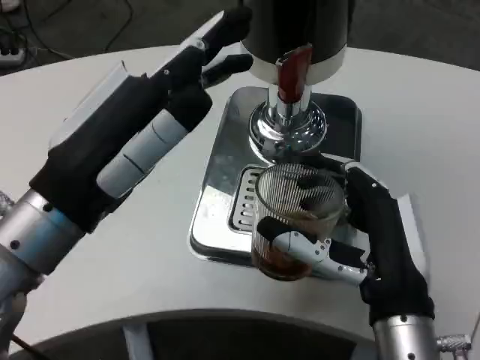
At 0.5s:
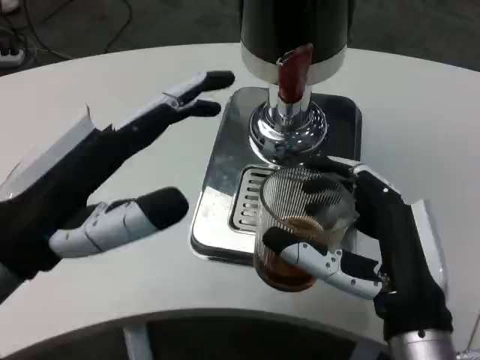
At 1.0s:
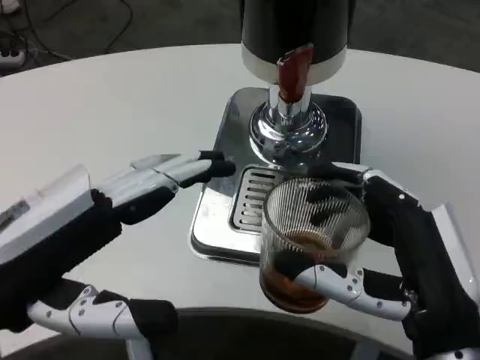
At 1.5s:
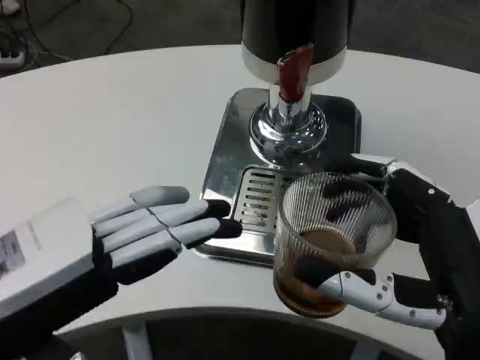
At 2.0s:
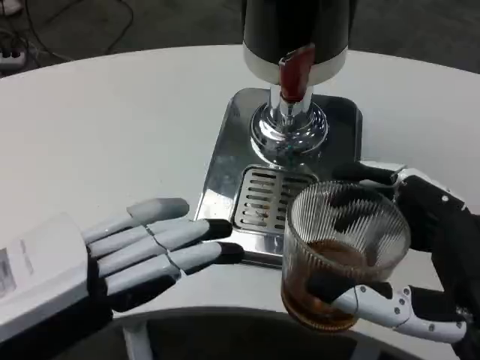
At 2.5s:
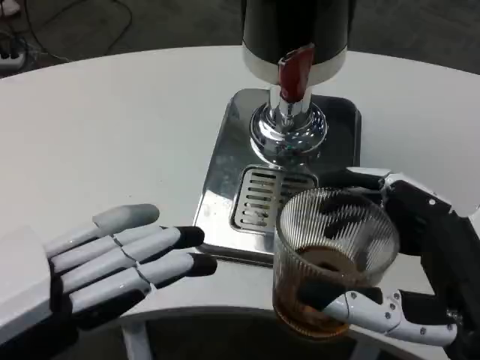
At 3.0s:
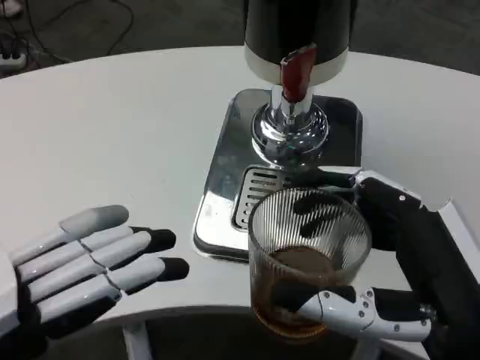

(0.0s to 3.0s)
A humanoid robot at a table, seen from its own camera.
Task of the whole recording: Grasp the cup under the faucet to collect the drink, then remove the cup.
0.0s - 1.5s: The left hand moves to the left and backward, about 10 cm. The right hand travels backward by about 5 cm.
1.5s - 3.0s: The left hand travels backward by roughly 5 cm.

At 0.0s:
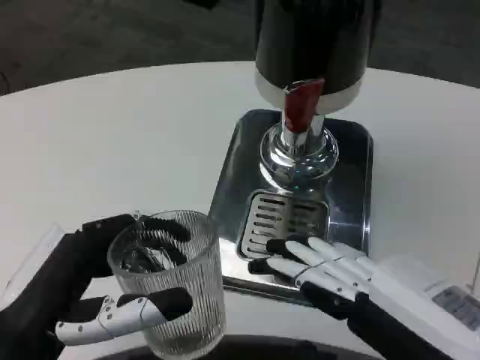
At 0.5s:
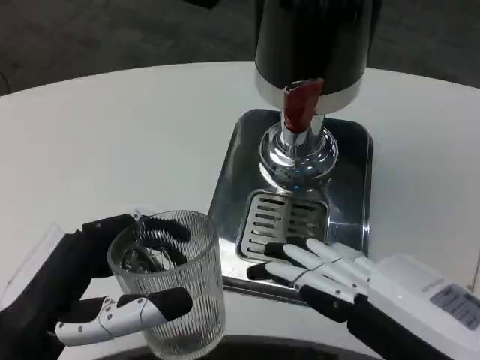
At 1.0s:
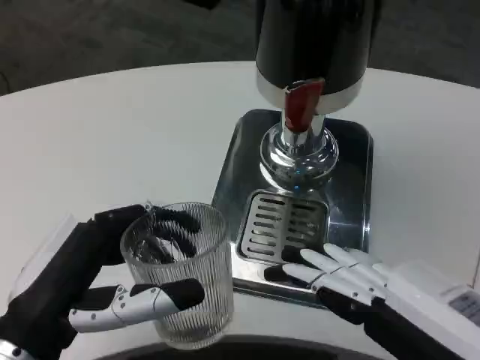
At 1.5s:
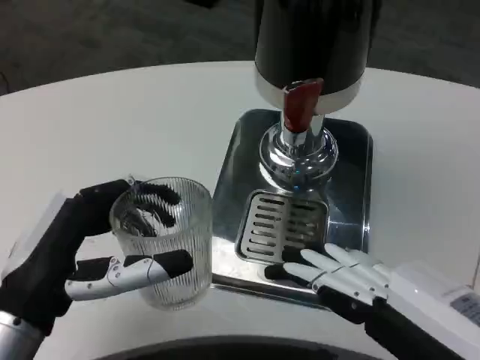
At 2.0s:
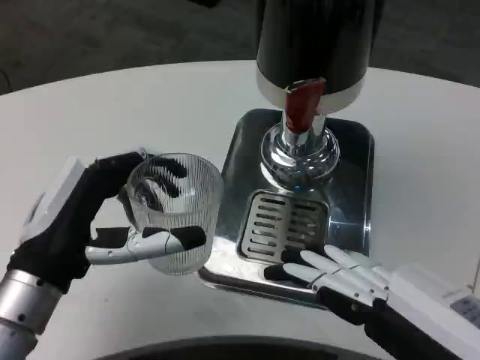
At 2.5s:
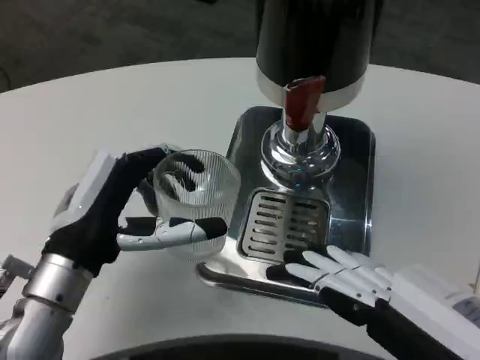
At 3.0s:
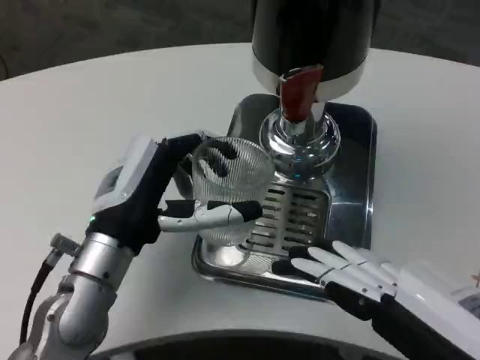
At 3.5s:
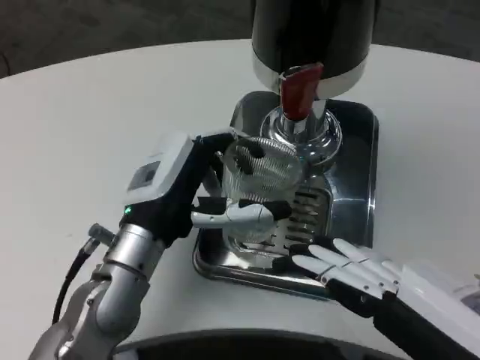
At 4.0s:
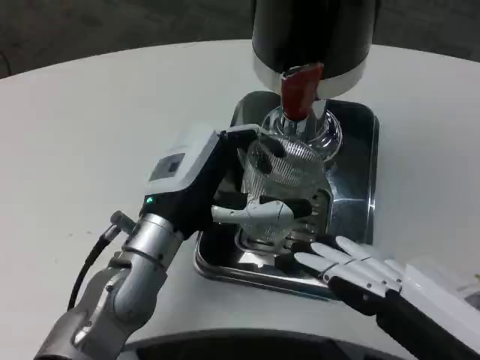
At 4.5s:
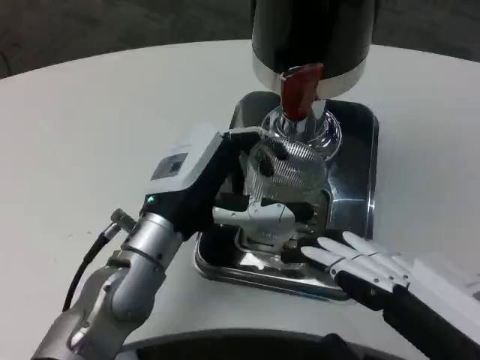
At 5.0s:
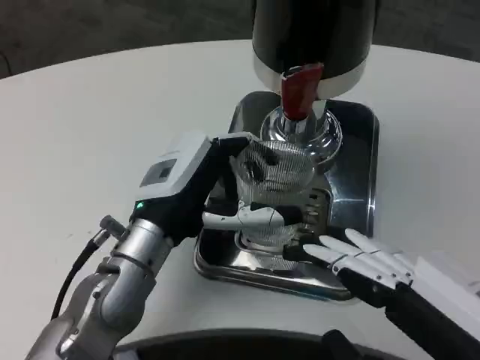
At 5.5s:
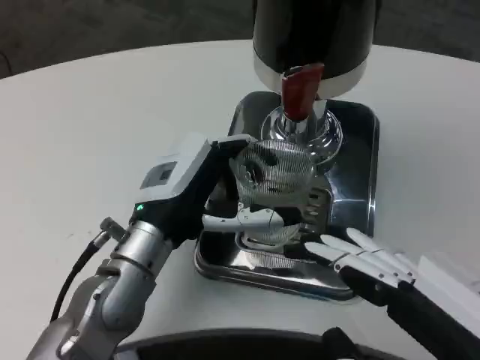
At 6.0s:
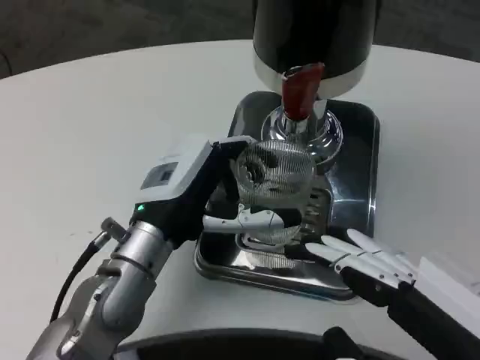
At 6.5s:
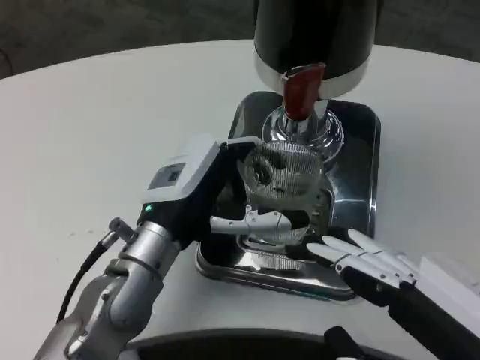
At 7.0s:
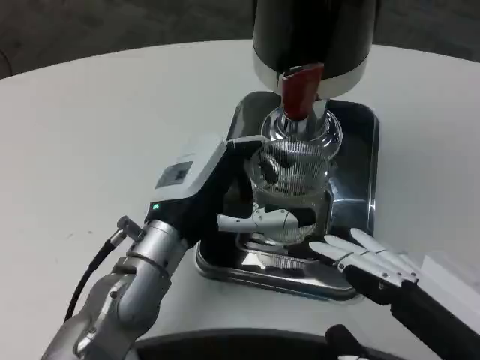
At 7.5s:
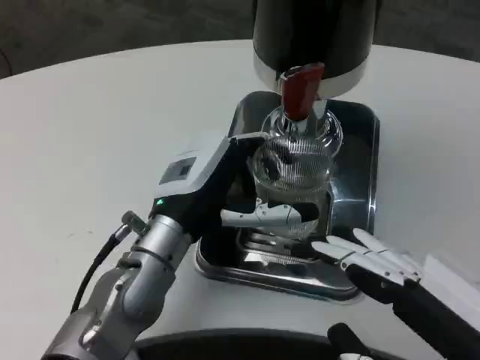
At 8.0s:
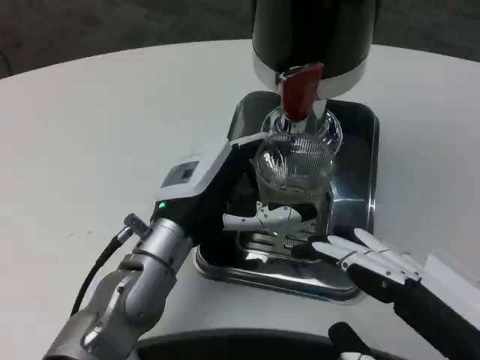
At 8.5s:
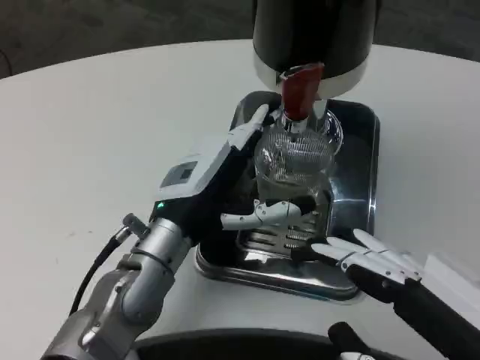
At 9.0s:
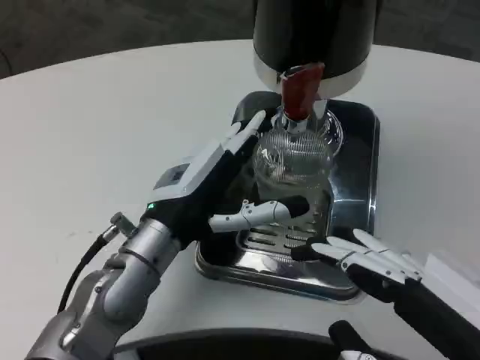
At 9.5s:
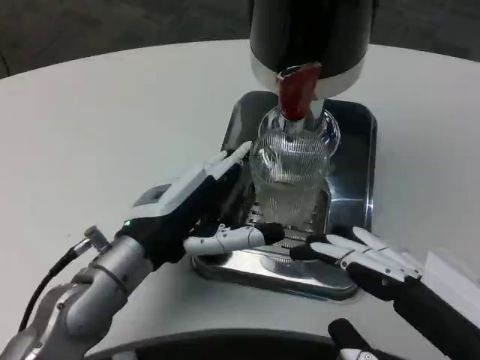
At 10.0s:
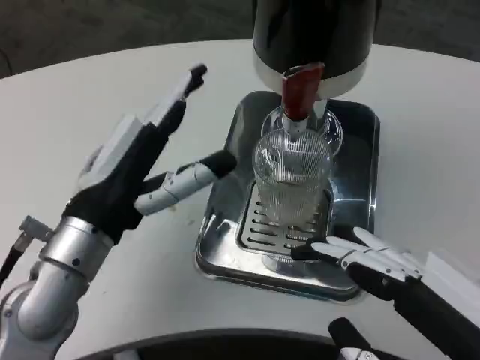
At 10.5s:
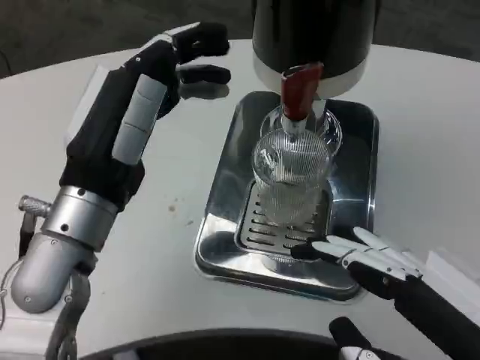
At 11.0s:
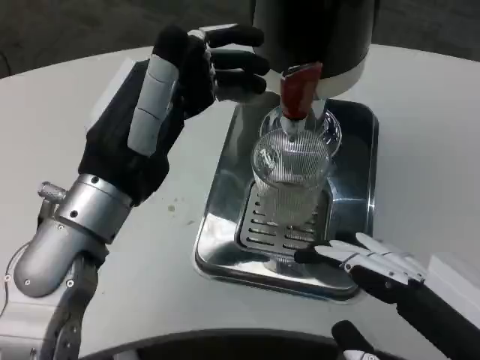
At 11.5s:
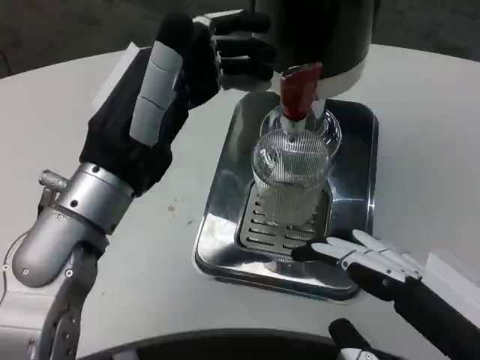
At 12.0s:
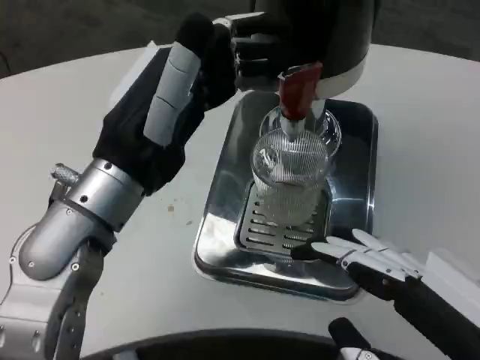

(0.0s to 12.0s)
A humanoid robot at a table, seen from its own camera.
Task of the whole recording: Grasp the cup under the faucet to collect the drink, then remove the cup.
0.0s - 2.0s: The left hand moves forward, approximately 10 cm.
2.0s - 4.0s: The left hand is displaced to the right and forward by some 10 cm.
4.0s - 6.0s: The two hands keep their place.
6.0s - 8.0s: The hands make only small movements.
8.0s - 10.0s: The left hand goes roughly 5 cm to the left.
10.0s - 12.0s: The left hand heads upward, covering roughly 5 cm.

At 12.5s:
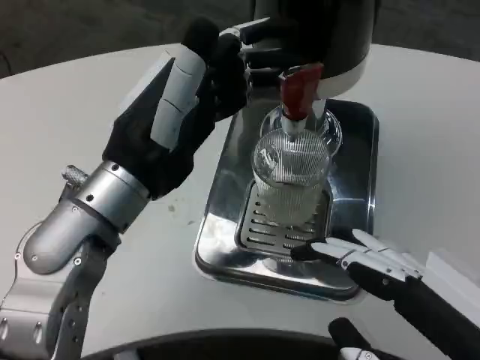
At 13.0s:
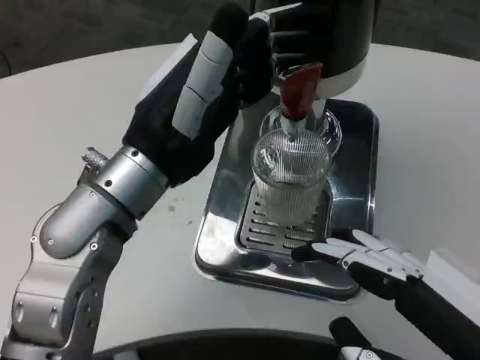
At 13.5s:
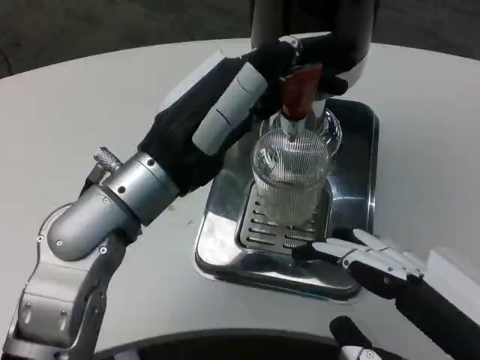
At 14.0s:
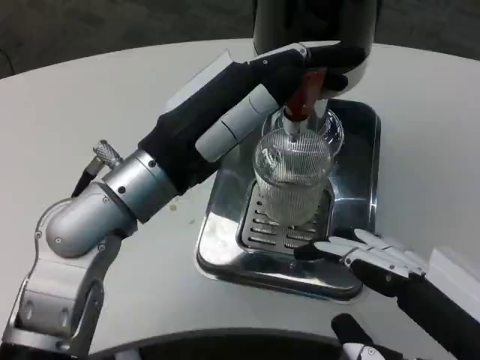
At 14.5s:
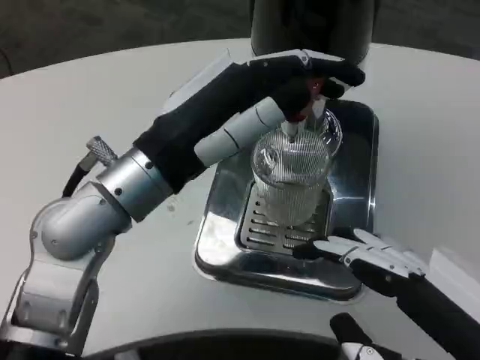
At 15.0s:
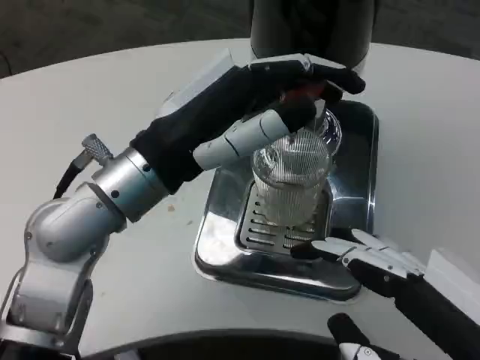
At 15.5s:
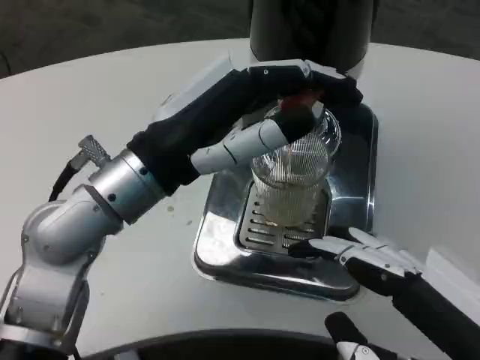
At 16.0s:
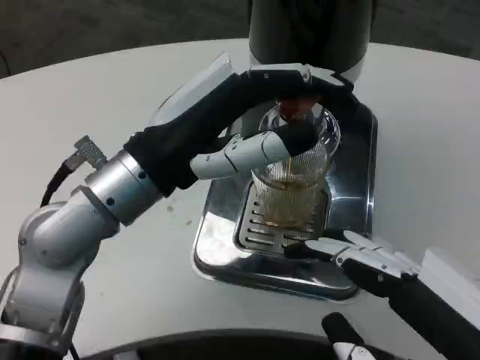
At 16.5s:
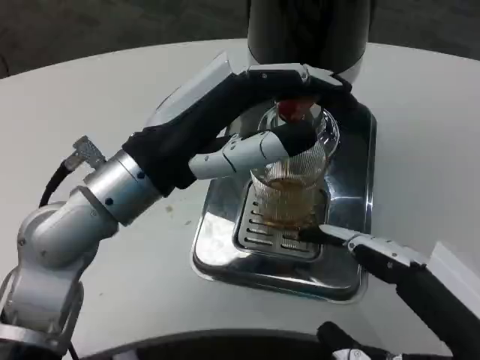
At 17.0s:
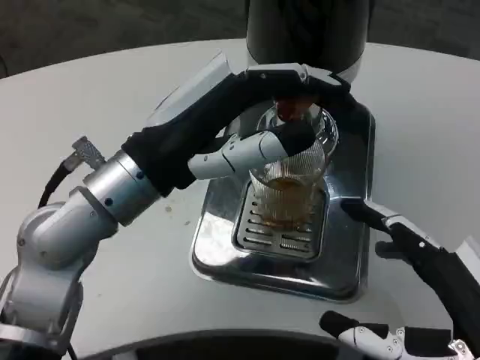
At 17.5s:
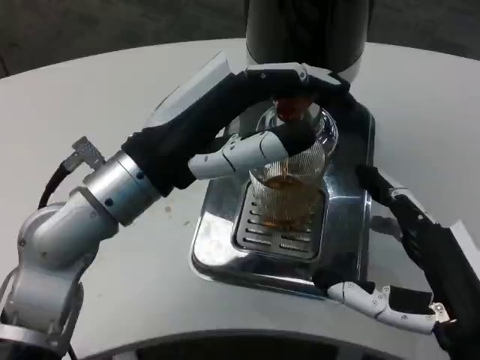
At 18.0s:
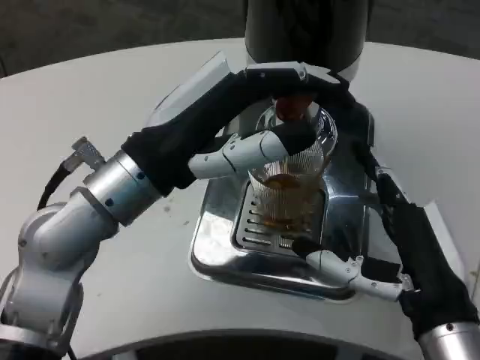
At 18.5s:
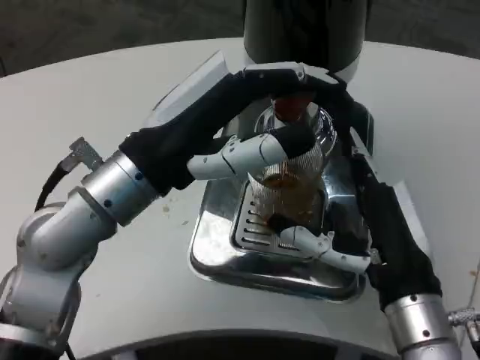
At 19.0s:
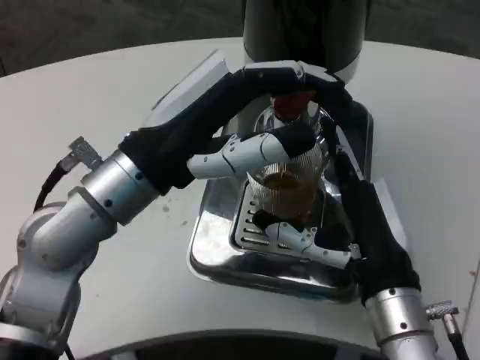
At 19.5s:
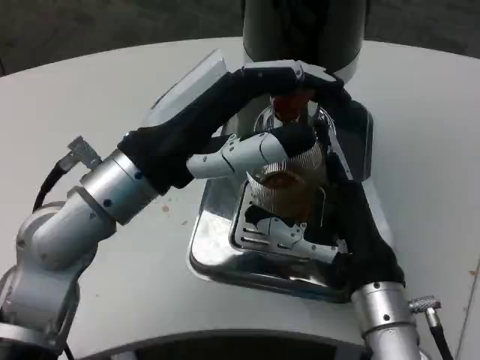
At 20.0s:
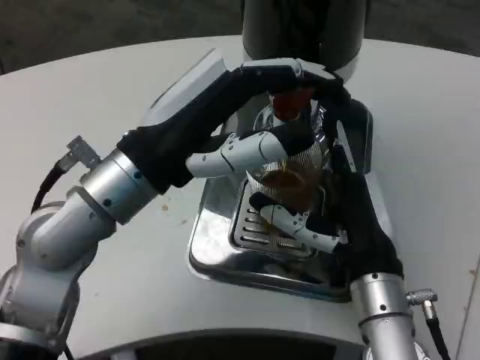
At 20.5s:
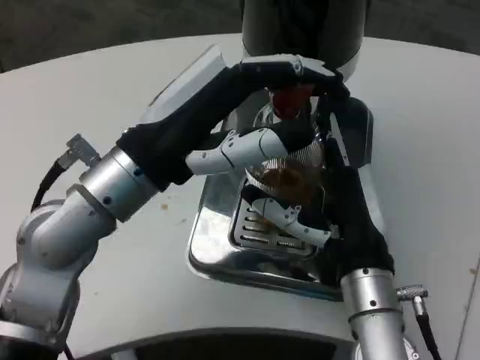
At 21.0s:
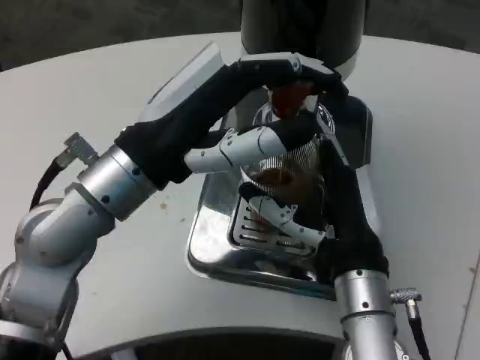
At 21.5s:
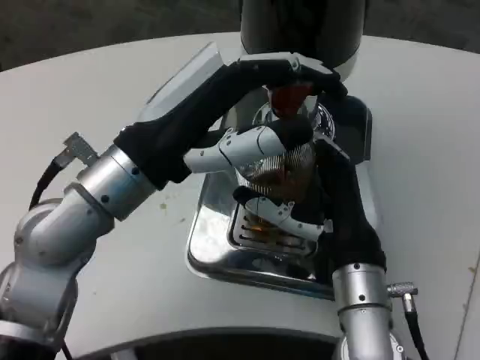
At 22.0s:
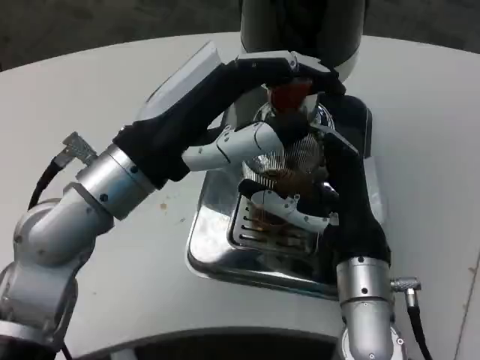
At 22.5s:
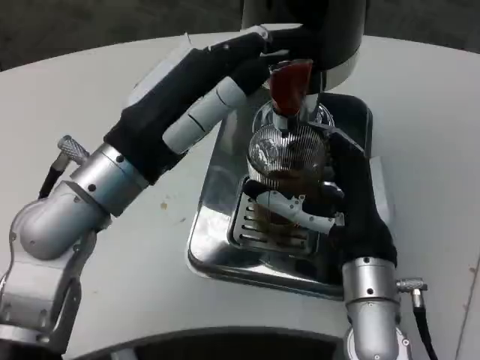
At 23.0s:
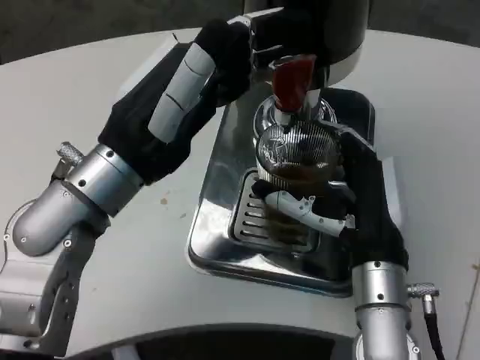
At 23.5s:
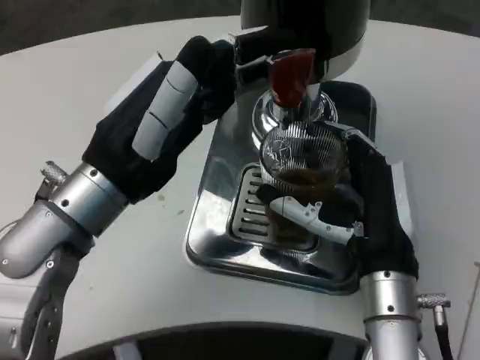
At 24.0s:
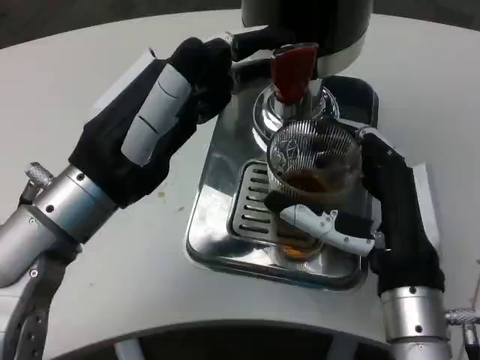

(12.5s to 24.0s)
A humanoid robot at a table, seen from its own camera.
Task of the whole recording: Grasp the cup under the faucet to collect the drink, then remove the cup.
16.5s - 18.5s: The right hand heads forward, to the left and downward, covering roughly 15 cm.
18.5s - 20.0s: The hands make only small movements.
22.0s - 24.0s: The right hand shifts about 5 cm backward.
